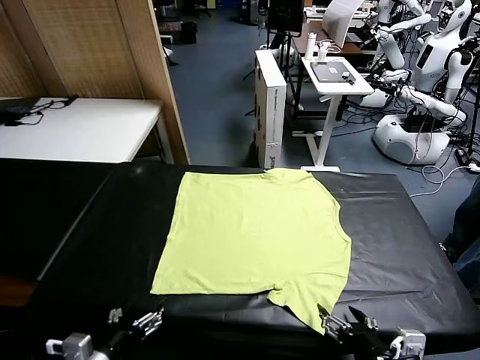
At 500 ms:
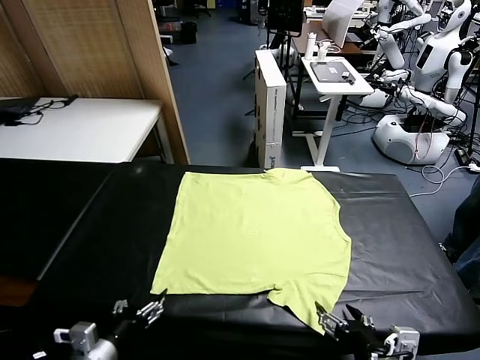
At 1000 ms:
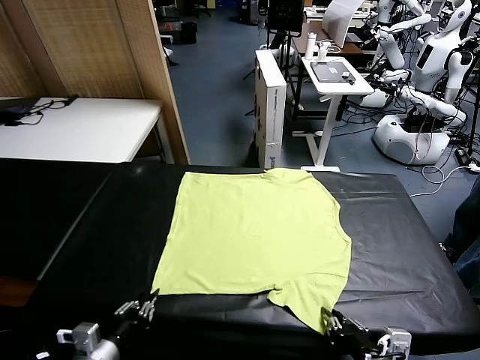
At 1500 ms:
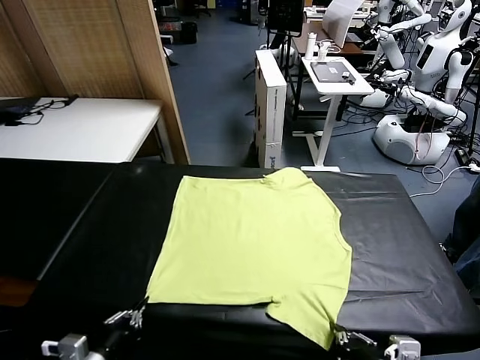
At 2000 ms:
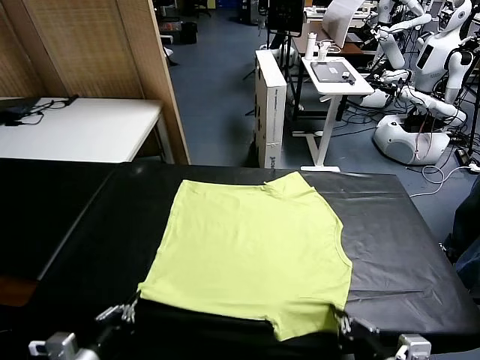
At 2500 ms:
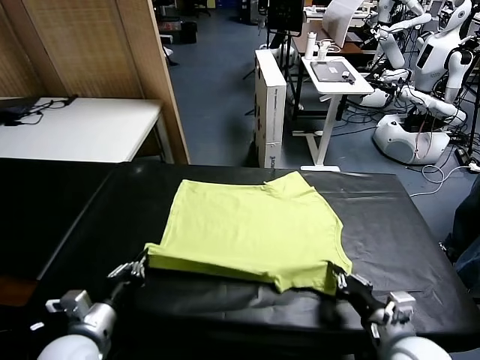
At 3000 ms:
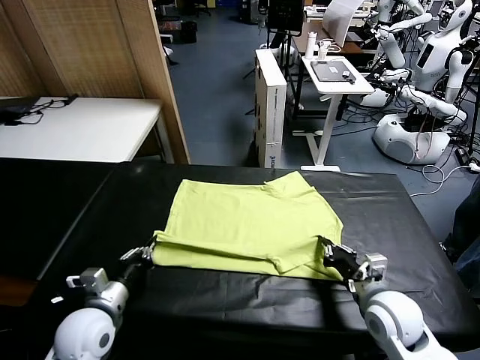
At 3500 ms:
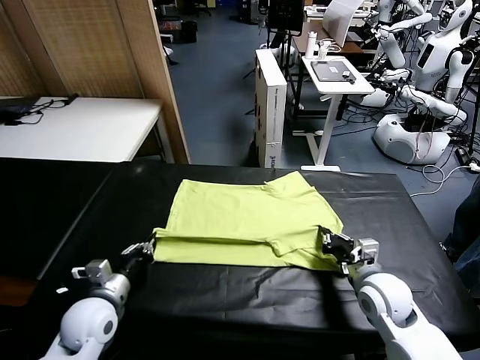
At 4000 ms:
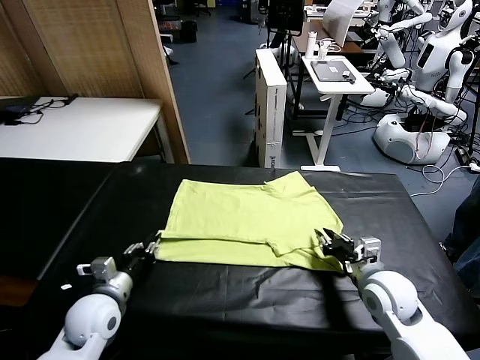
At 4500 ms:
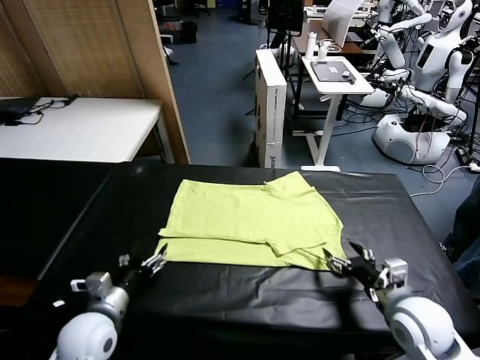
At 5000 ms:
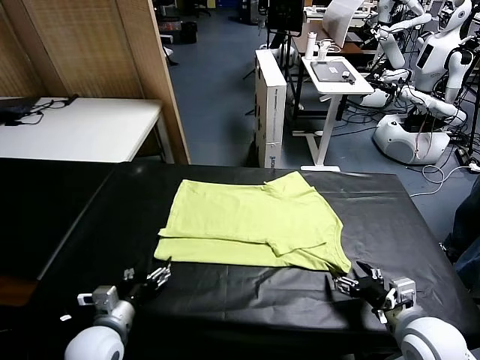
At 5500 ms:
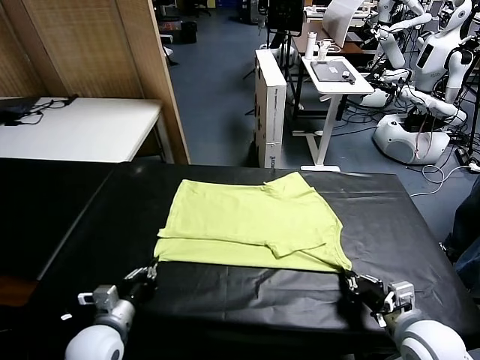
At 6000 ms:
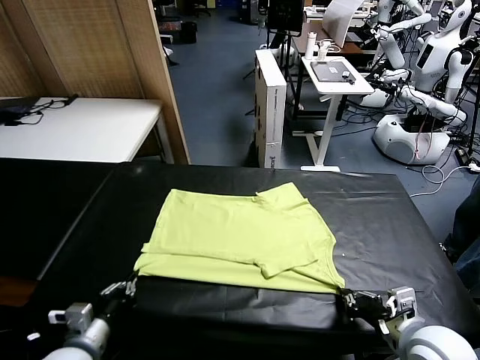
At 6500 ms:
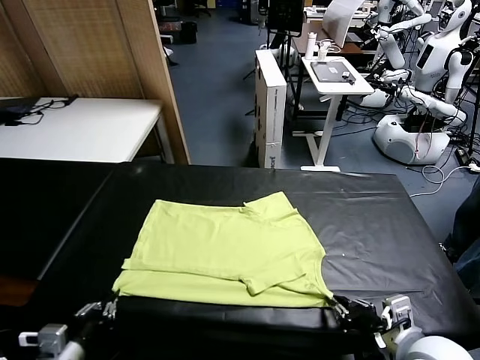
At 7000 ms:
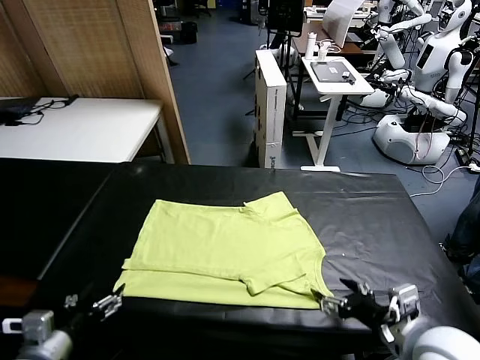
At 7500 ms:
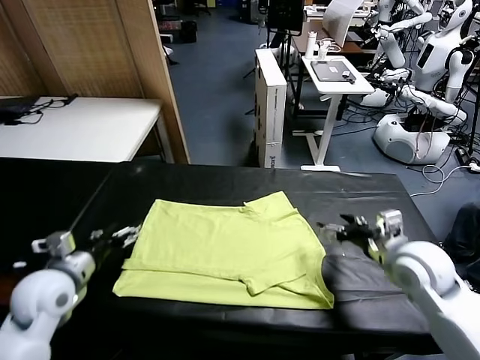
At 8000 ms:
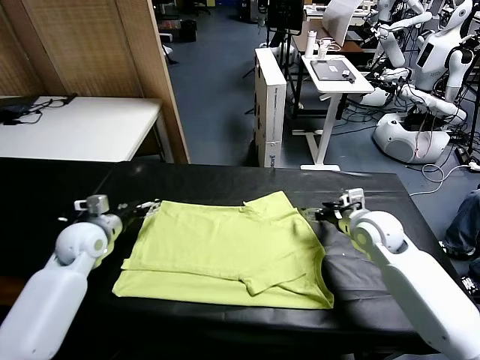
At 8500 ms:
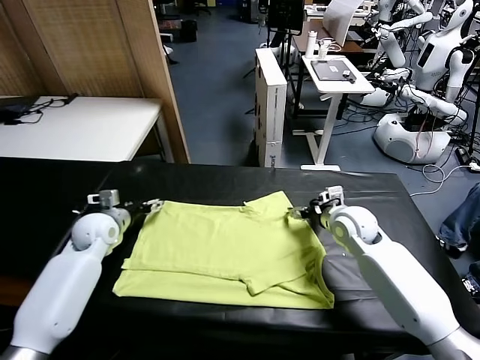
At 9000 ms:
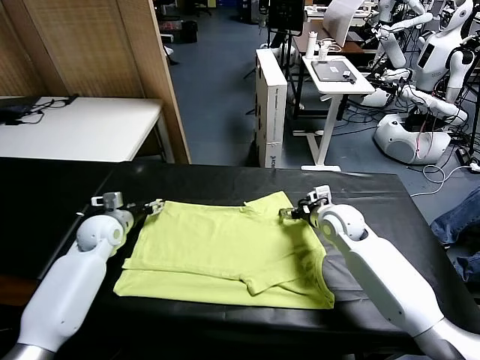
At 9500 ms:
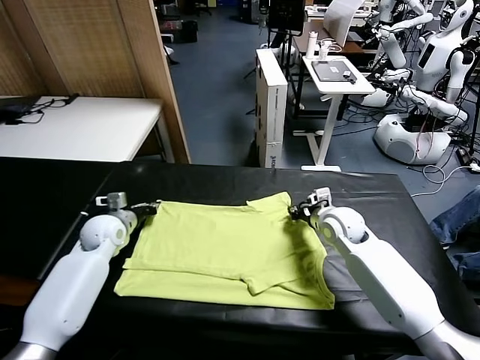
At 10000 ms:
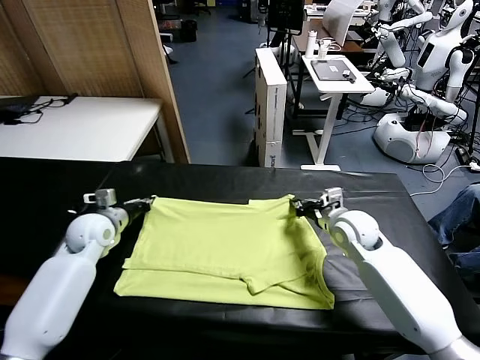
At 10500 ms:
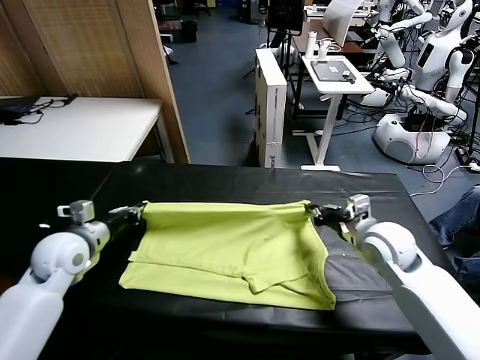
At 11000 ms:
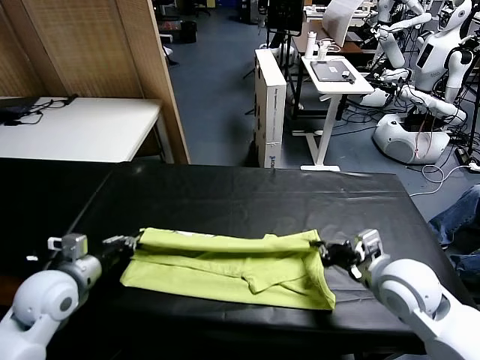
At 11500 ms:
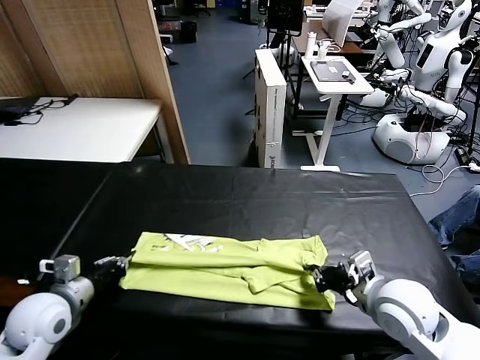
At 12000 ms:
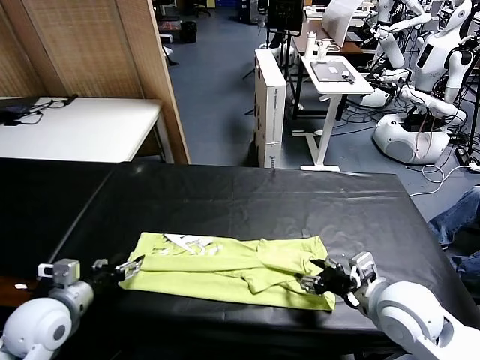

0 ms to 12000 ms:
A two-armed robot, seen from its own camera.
Task of the whole recording: fold and organize the clothes.
Step, 0 ms to 1000 ms: use both grippers simultaneously to clamp the lower edge of the clothing fabric.
Step, 1500 ms to 4000 ms: use both grippers to drag the lower edge of the fabric forward and fold it over the upper edge.
Step, 4500 ms to 6500 ms: Drag the clothes downward with both gripper.
Step, 7000 ms to 9500 ms: use both grippers simultaneously to clamp the upper edge of the clothing fabric.
Step, 10000 ms to 12000 ms: use both grippers to drag the upper edge of the fabric backward and fold it over the lower edge.
2000 ms to 4000 ms: Both grippers travel together forward, about 10 cm. The left gripper opens up, while the right gripper opens its fingers.
4000 ms to 6000 ms: The two grippers go some 10 cm backward. The left gripper closes up, while the right gripper closes.
6000 ms to 8000 ms: Both grippers move forward, roughly 30 cm. The left gripper opens. The right gripper opens.
8000 ms to 10000 ms: The left gripper changes place by some 5 cm, and closes its fingers, while the right gripper closes.
10000 ms to 12000 ms: Both grippers move backward, roughly 15 cm. The left gripper opens up, while the right gripper opens.

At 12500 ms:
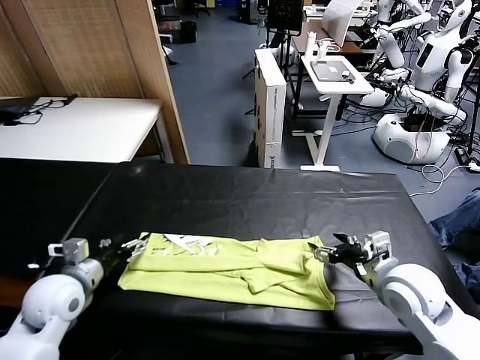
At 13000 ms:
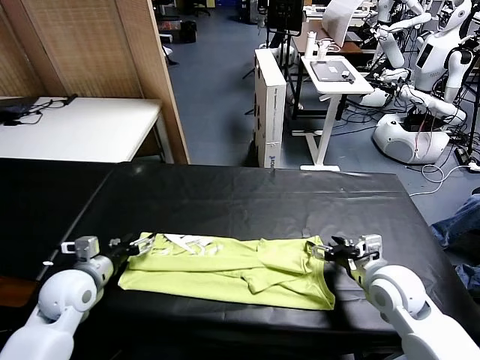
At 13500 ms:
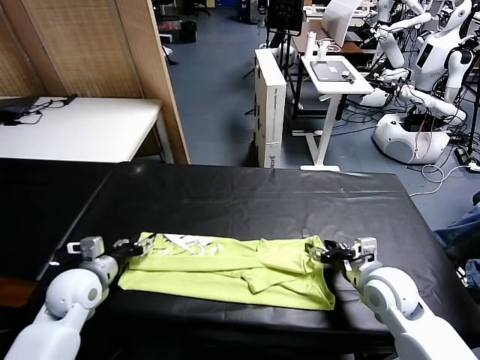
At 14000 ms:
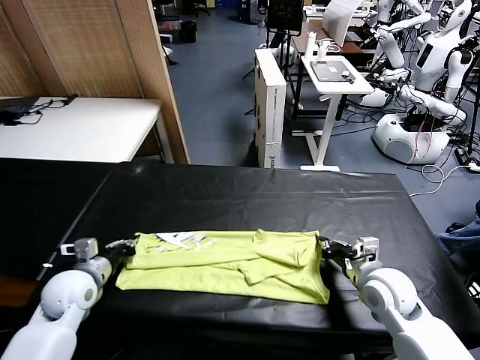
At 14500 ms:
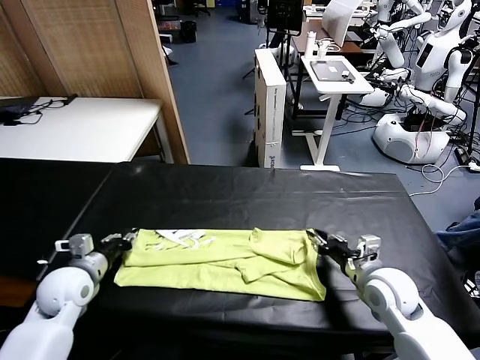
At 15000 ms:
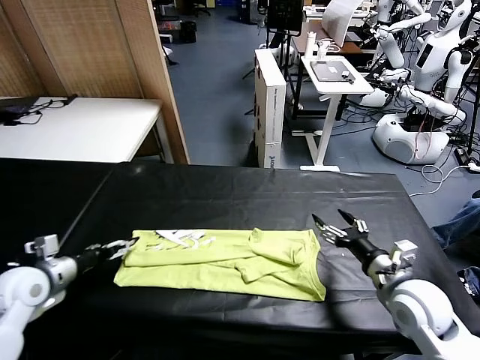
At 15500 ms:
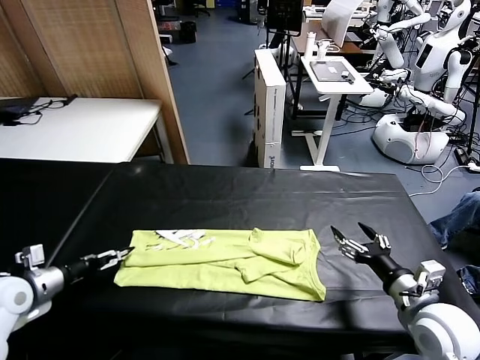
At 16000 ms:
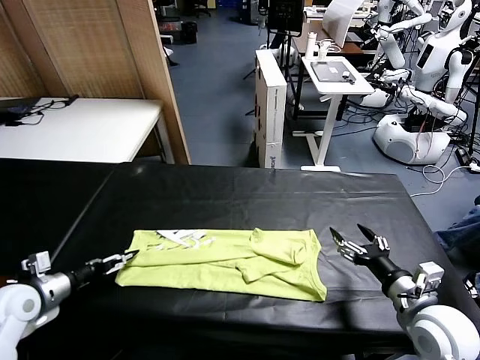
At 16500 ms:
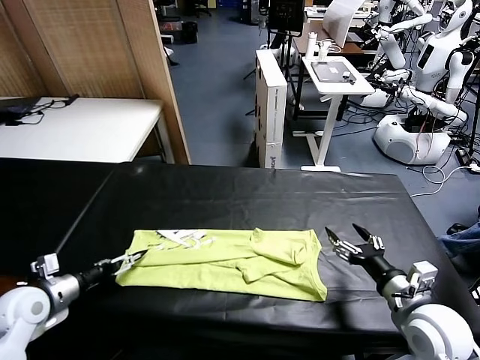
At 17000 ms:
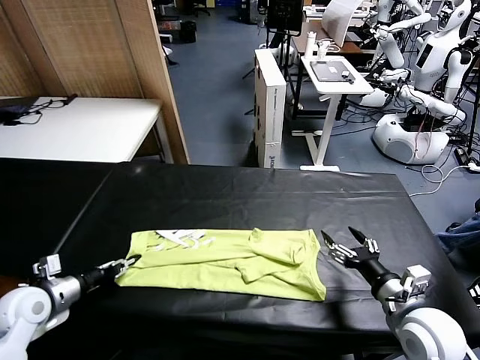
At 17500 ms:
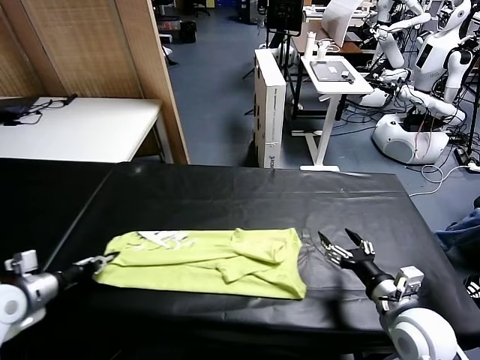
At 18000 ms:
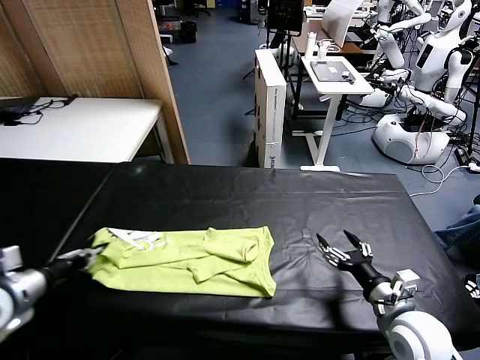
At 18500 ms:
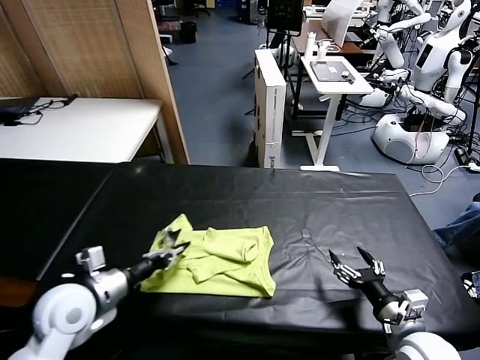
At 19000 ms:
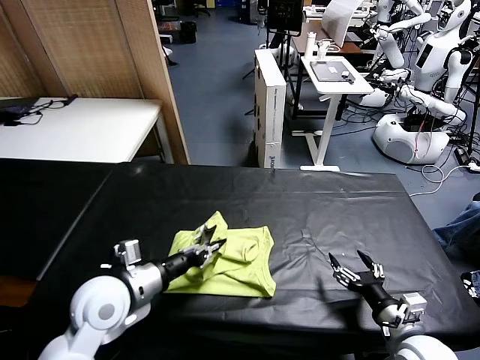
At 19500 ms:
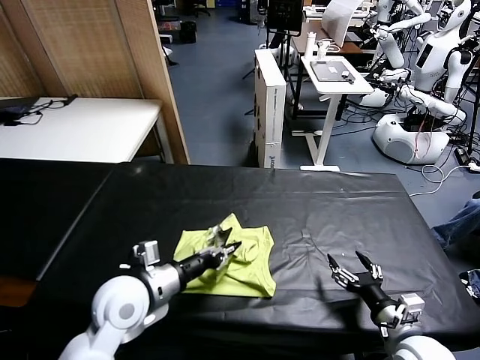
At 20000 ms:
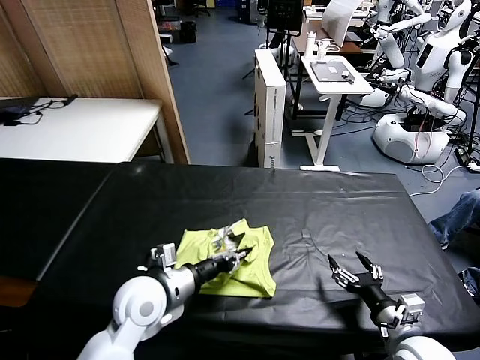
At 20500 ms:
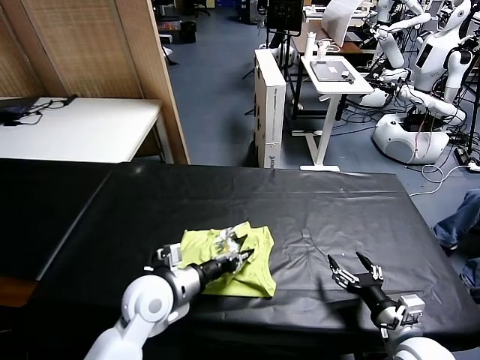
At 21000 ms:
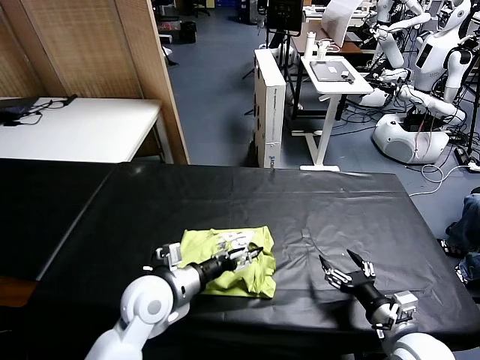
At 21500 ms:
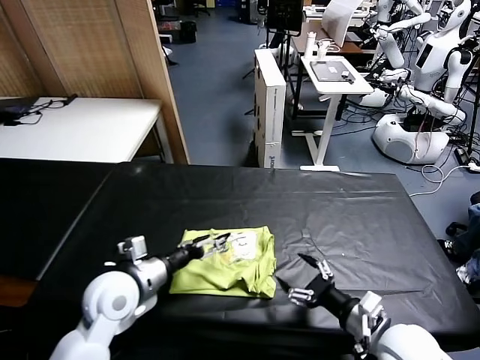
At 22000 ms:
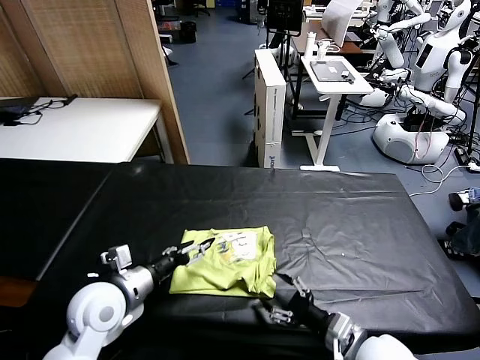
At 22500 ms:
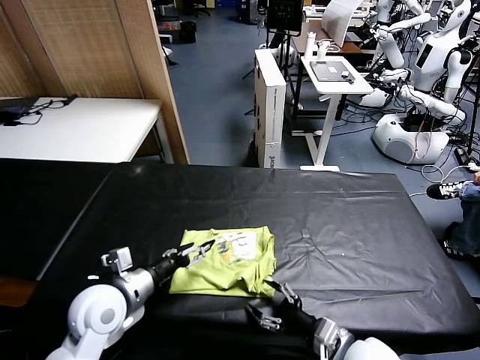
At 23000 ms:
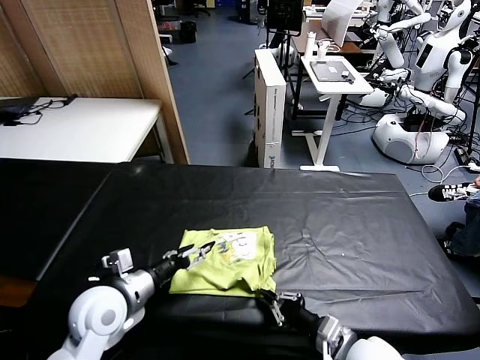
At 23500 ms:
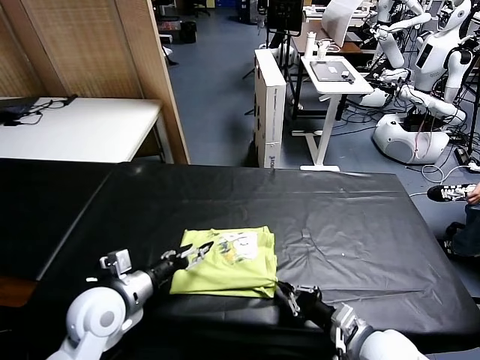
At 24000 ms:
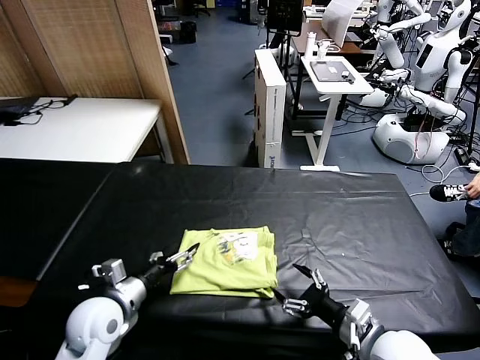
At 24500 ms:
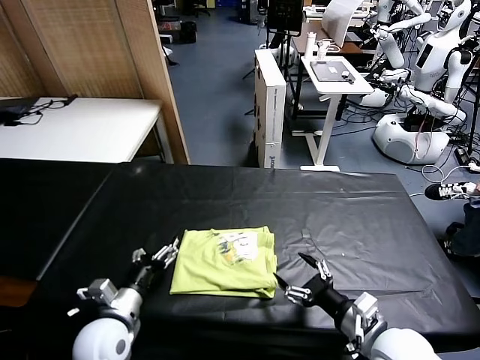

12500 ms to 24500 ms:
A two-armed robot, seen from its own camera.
Task of the whole recording: fold and organize the clothes.
Step, 12500 ms to 17000 ms: use the left gripper to clamp the left edge of the fabric.
Step, 17500 ms to 21000 ms: use the left gripper to drag the left edge of the fabric to the left and folds it over the right edge.
12500 ms to 14500 ms: The left gripper closes and opens again. Meanwhile the right gripper closes and opens again.
14500 ms to 16500 ms: The right gripper goes roughly 5 cm backward; the left gripper shifts roughly 5 cm to the left.
16500 ms to 18500 ms: The left gripper heads to the right, covering roughly 15 cm, and closes its fingers, while the right gripper shifts about 5 cm downward.
18500 ms to 20500 ms: The left gripper is displaced to the right and downward by about 10 cm.
20500 ms to 22500 ms: The grippers both shift to the left by about 10 cm. The left gripper opens its fingers; the right gripper closes its fingers.
22500 ms to 24500 ms: The right gripper goes about 5 cm upward, and opens. Meanwhile the left gripper shifts approximately 10 cm downward and backward.

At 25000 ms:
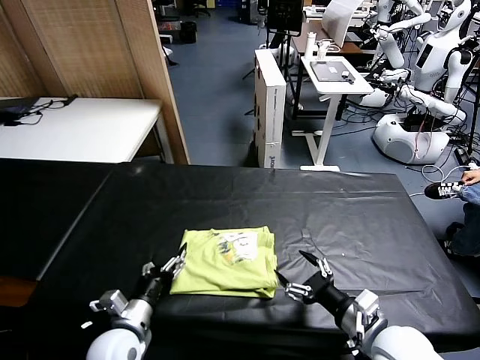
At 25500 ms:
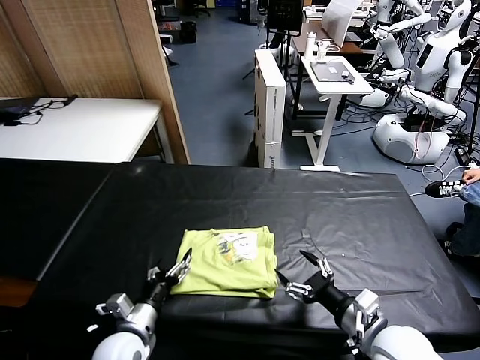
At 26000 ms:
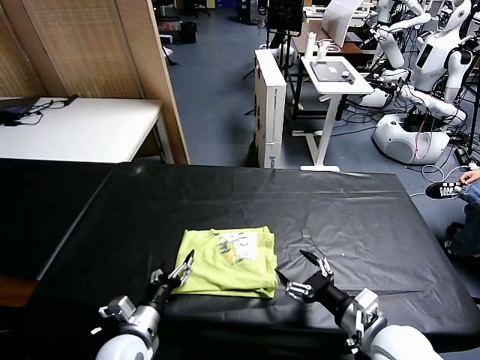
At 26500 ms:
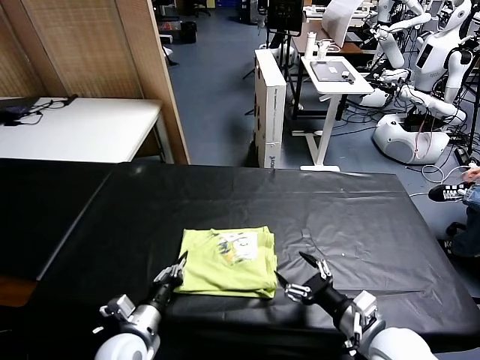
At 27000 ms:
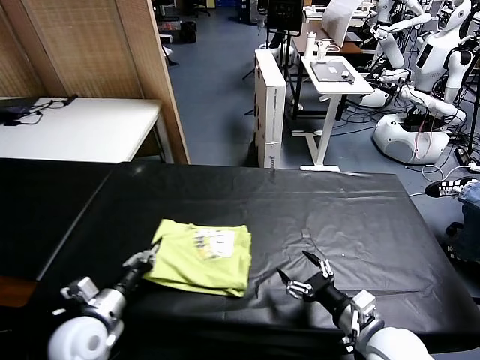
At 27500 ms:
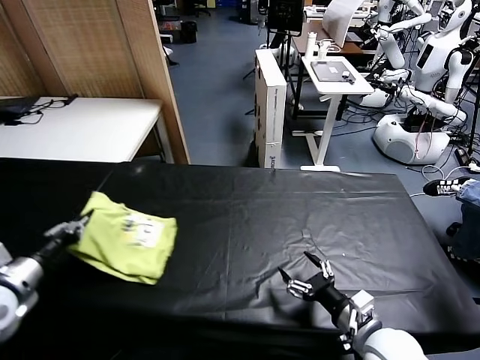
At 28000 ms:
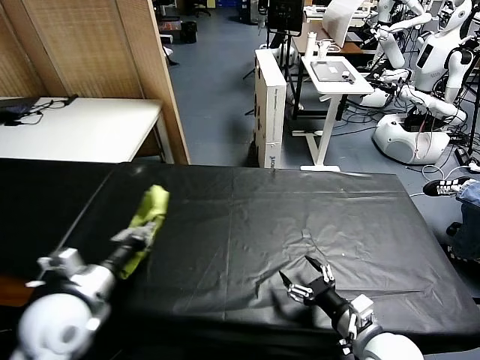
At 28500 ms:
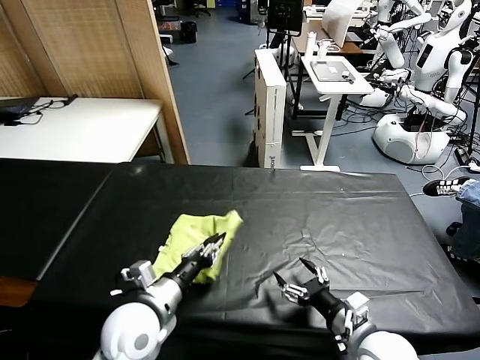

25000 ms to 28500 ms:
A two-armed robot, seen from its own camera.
Task of the whole recording: fold and organize the clothes.
25000 ms to 27000 ms: The left gripper goes roughly 15 cm to the left and upward, and closes up.
27000 ms to 28500 ms: The left gripper is displaced to the right by roughly 15 cm, and opens.